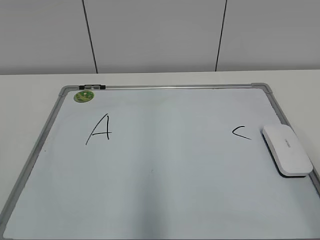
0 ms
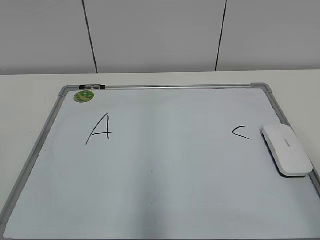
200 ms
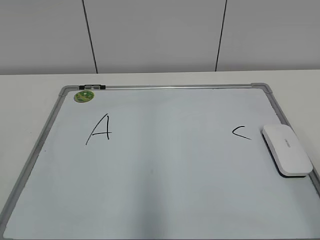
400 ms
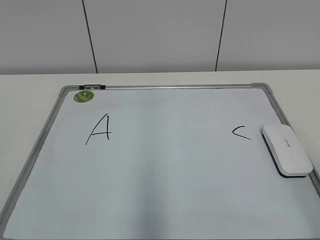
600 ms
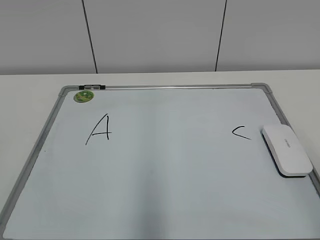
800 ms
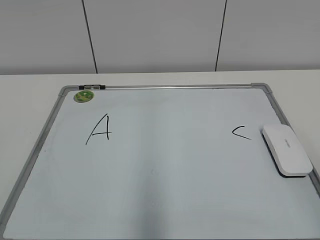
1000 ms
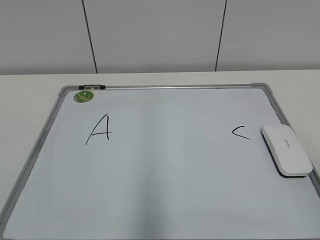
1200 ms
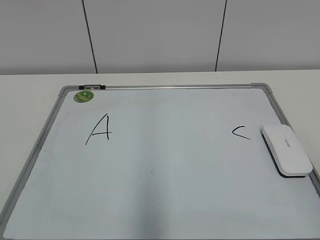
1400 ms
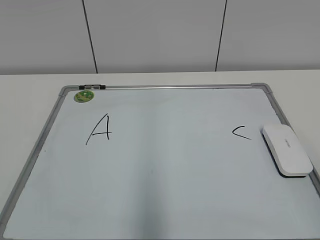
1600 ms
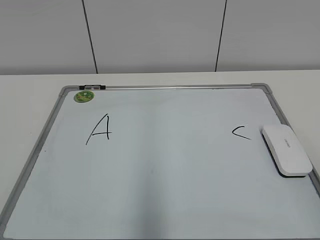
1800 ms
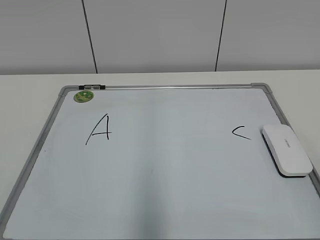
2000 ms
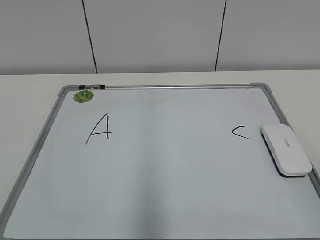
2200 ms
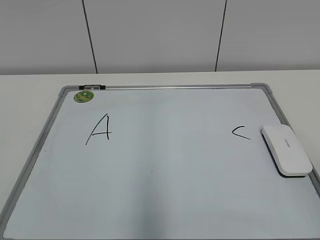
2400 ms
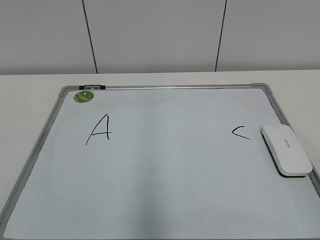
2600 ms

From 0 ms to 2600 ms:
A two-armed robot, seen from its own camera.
Task of the whole recording: pick up the eraser on the blackboard and erase the letter "B".
From 1200 ms to 2600 ms: Neither gripper changes place.

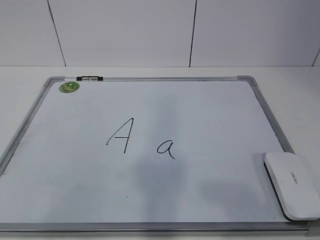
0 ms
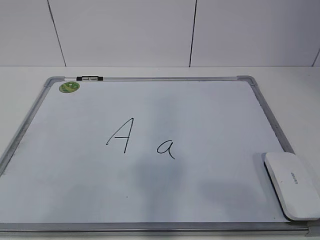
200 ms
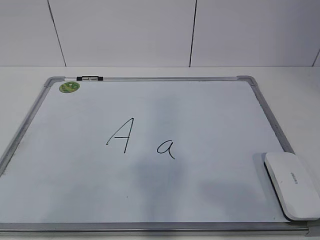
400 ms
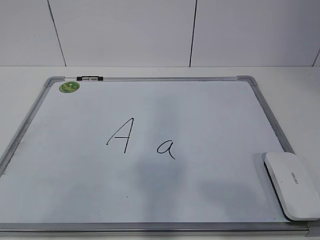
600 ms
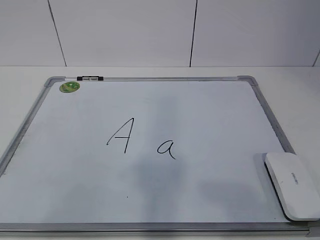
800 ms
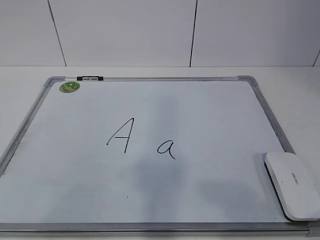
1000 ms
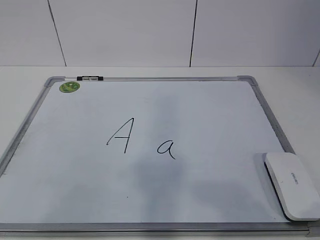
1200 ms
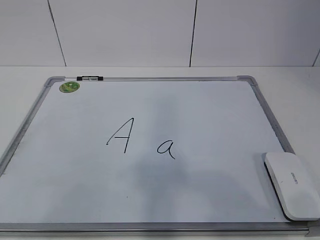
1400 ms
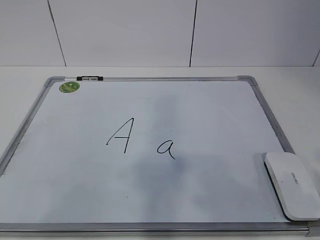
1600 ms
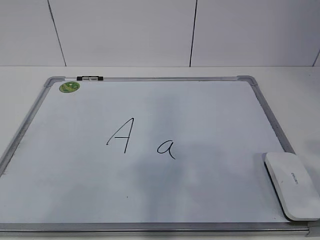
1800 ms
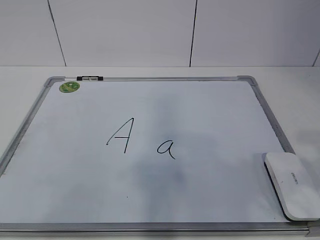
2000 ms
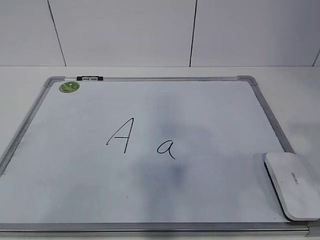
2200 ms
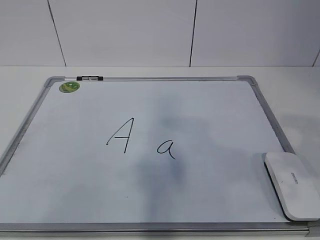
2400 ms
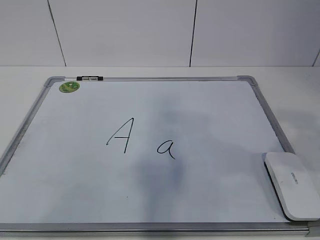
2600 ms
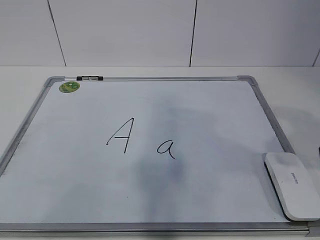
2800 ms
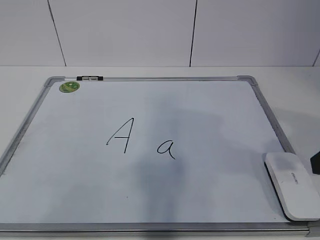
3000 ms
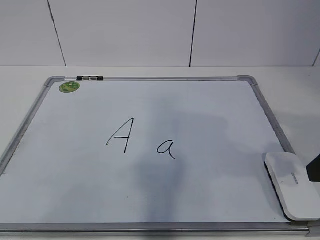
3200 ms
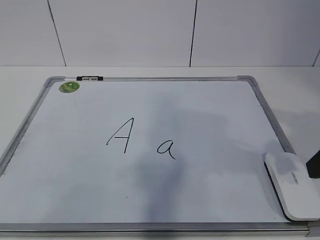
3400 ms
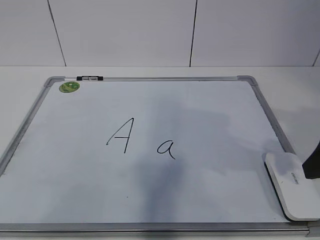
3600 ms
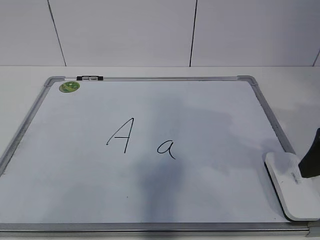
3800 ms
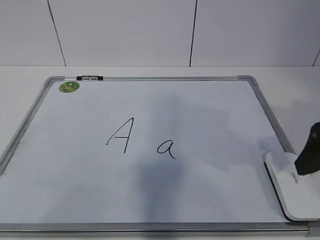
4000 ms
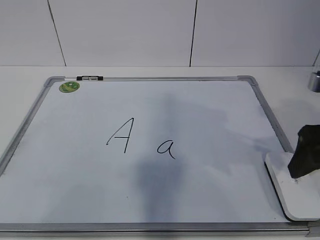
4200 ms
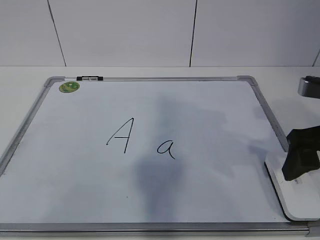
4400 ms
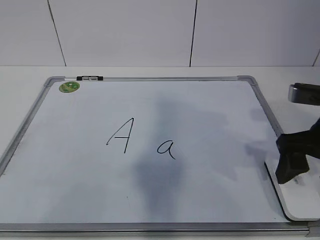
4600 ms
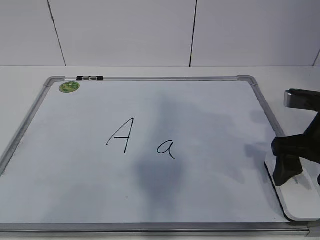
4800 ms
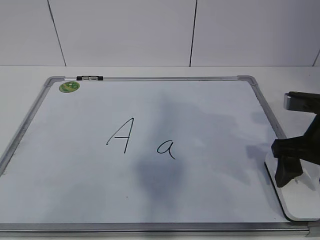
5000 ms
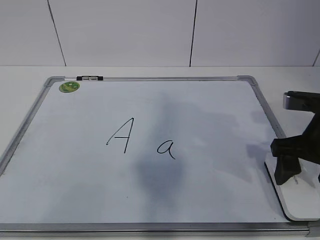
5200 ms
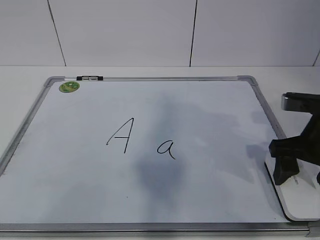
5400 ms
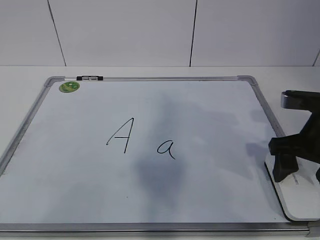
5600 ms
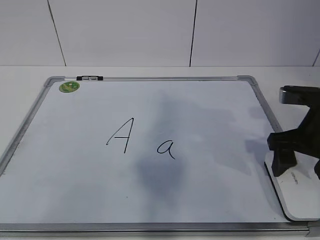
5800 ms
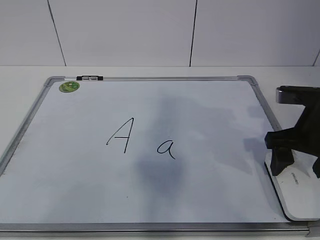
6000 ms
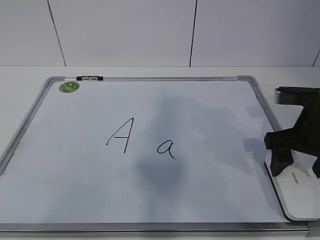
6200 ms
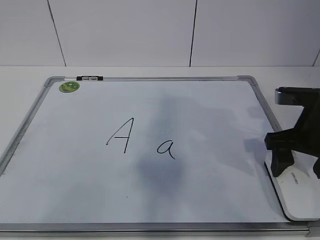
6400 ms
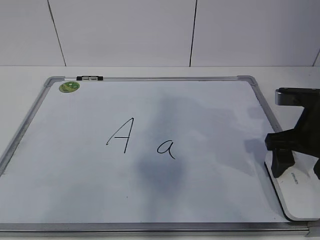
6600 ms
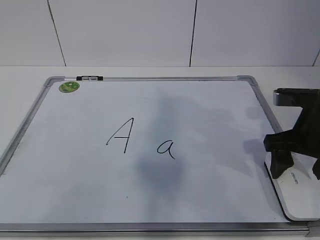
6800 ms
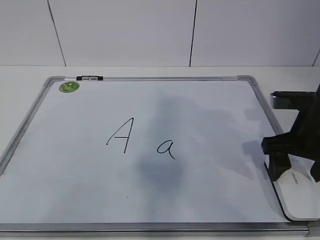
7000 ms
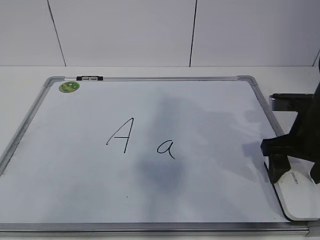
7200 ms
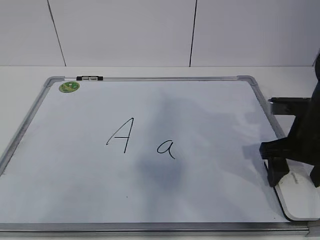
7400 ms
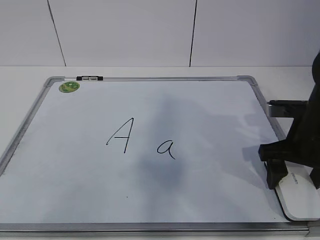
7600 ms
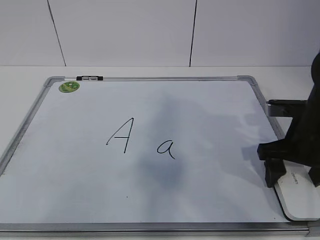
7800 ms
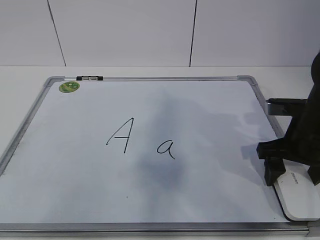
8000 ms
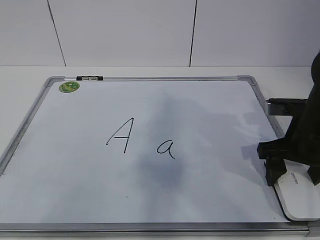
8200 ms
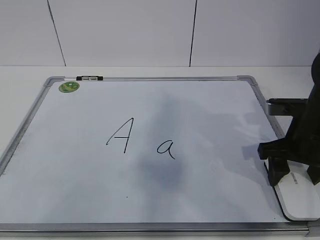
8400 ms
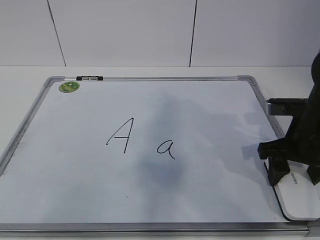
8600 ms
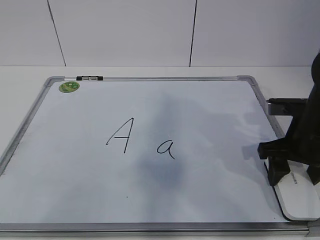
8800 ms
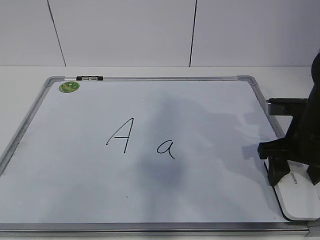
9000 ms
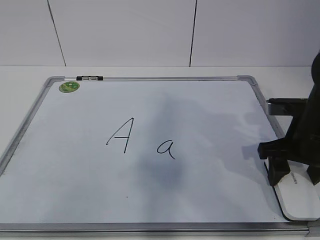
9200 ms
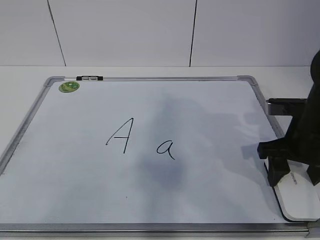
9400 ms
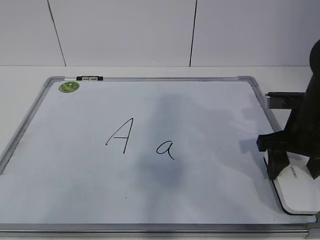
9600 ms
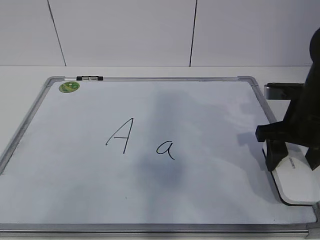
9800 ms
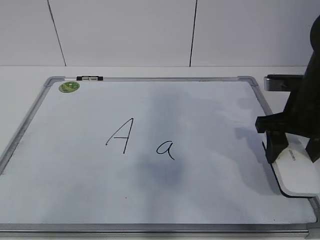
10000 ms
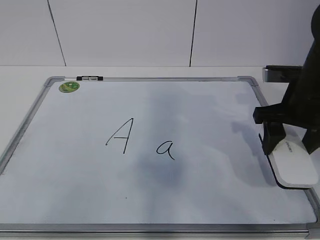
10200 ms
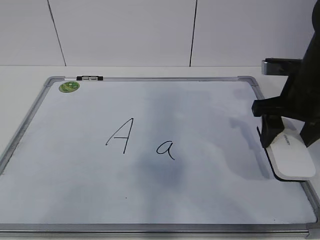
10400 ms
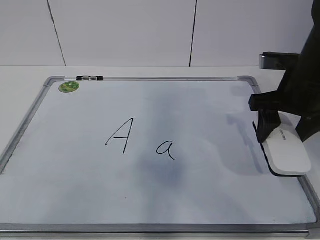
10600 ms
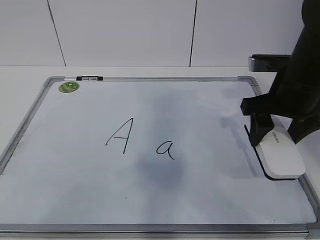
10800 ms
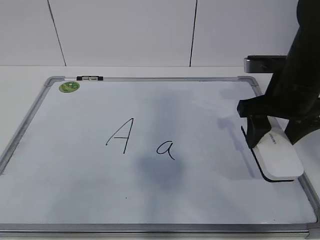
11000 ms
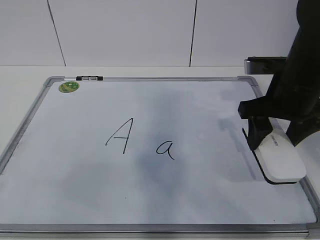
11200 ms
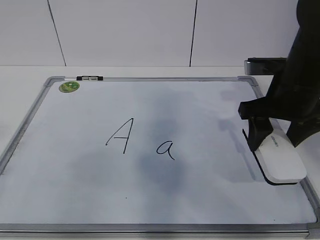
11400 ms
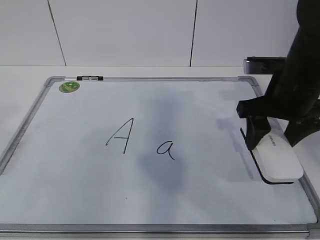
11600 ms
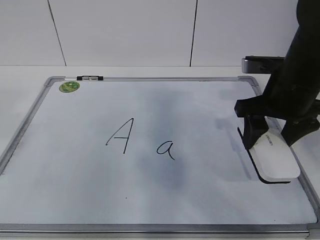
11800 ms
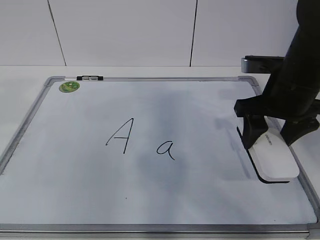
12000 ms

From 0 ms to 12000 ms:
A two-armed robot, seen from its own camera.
Task of the whole recording: pick up the eraser on the blackboard and erase the letter "a".
Step, from 0 ms to 7000 ms: Grab the eraser with your right hand.
From 1600 ms to 3000 ms: The right gripper heads forward, covering some 15 cm.
From 3000 ms to 4400 ms: The right gripper heads forward, covering some 5 cm, and opens up.
From 4400 ms to 6000 ms: The right gripper changes place by roughly 5 cm.
From 6000 ms to 7600 ms: The grippers make only small movements.
From 7600 ms to 9000 ms: The right gripper closes up.
From 9000 ms to 10400 ms: The right gripper shifts roughly 5 cm upward.

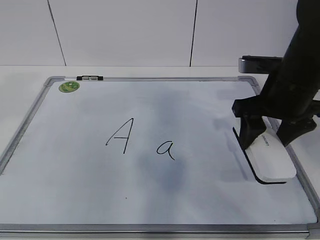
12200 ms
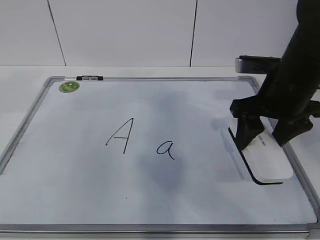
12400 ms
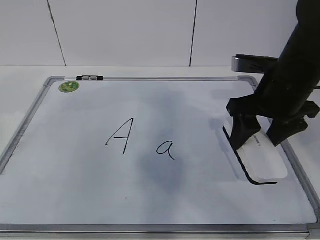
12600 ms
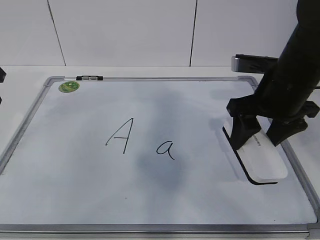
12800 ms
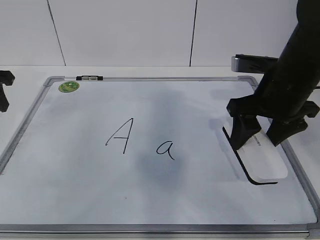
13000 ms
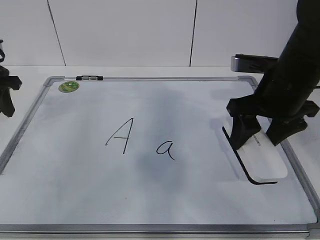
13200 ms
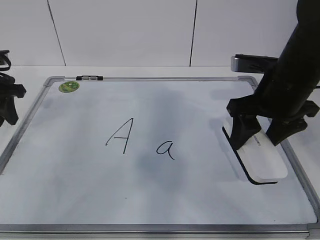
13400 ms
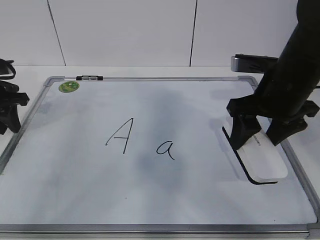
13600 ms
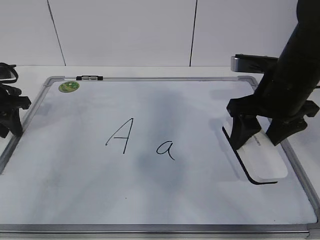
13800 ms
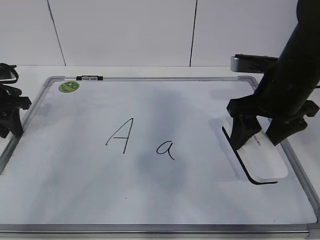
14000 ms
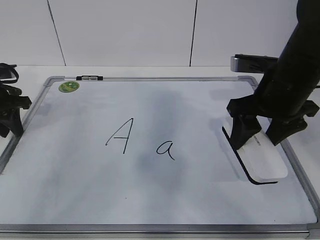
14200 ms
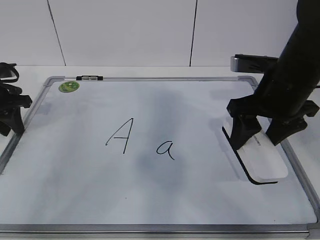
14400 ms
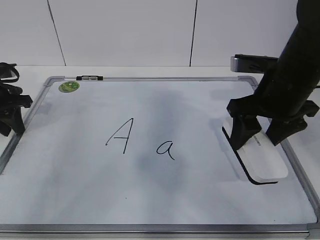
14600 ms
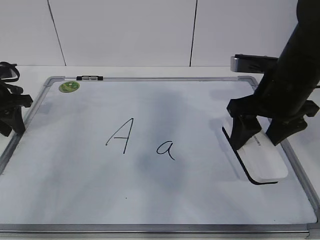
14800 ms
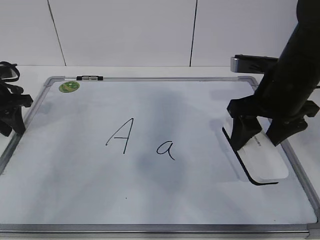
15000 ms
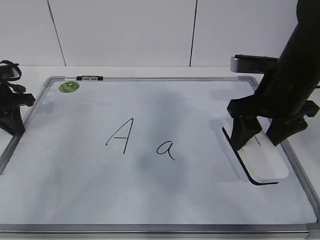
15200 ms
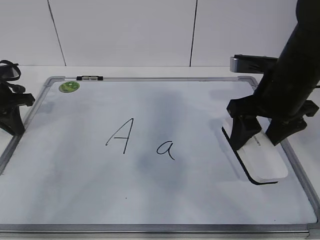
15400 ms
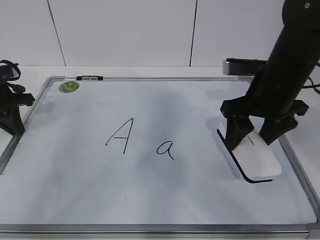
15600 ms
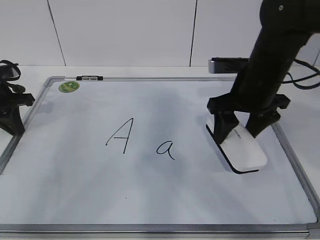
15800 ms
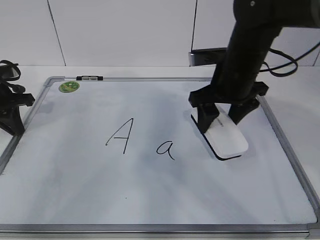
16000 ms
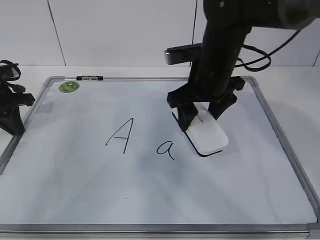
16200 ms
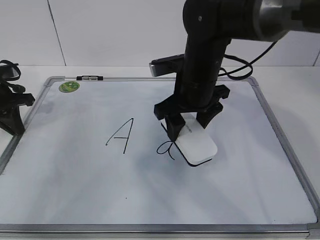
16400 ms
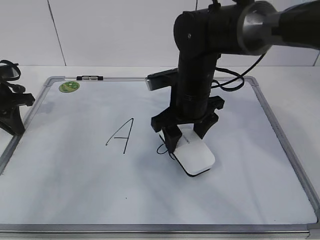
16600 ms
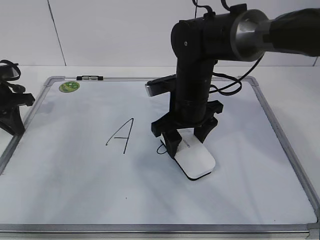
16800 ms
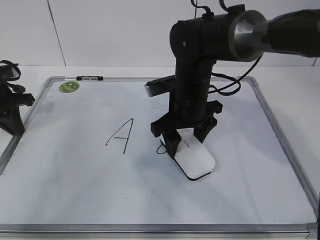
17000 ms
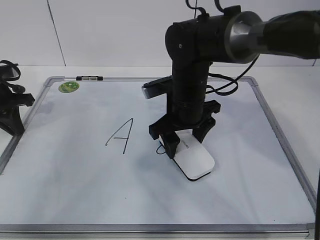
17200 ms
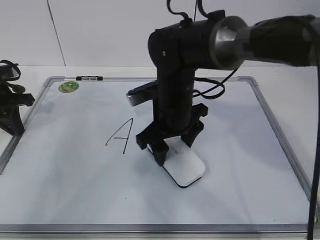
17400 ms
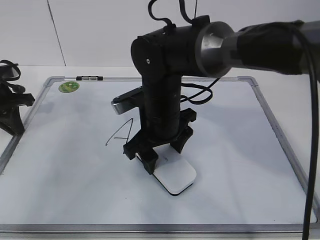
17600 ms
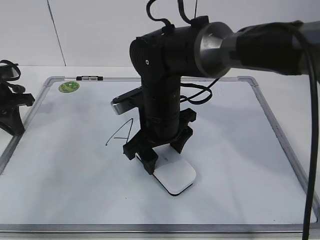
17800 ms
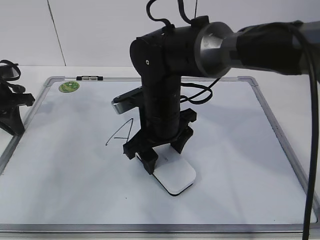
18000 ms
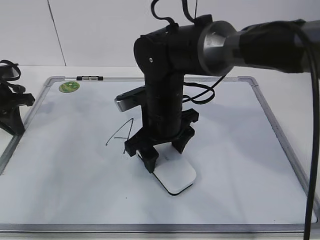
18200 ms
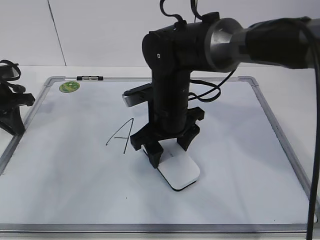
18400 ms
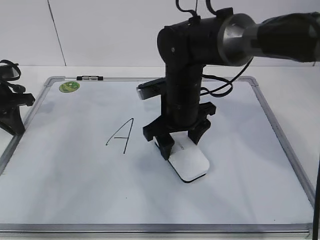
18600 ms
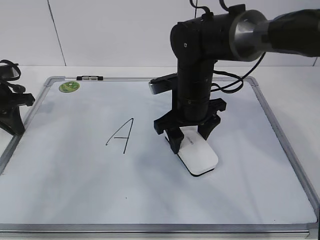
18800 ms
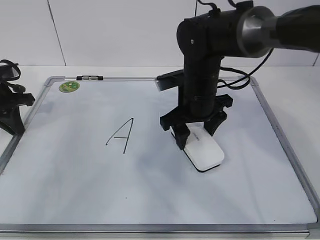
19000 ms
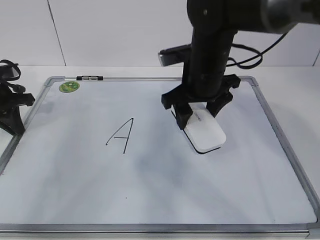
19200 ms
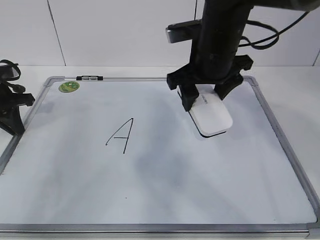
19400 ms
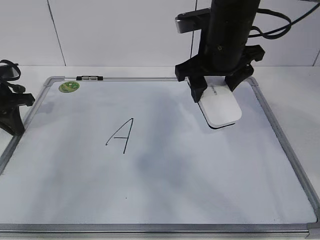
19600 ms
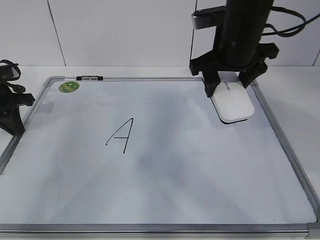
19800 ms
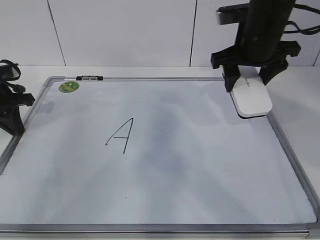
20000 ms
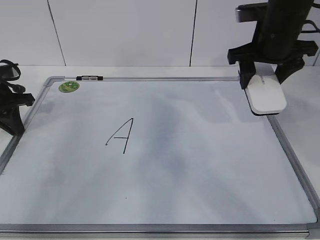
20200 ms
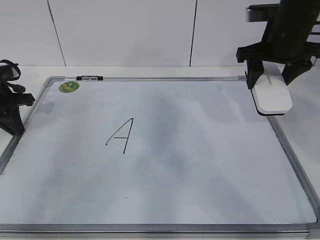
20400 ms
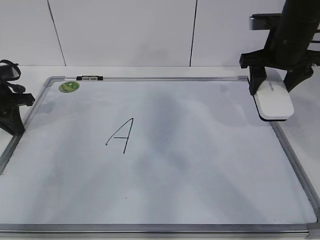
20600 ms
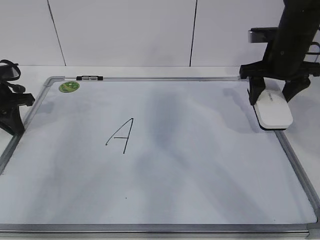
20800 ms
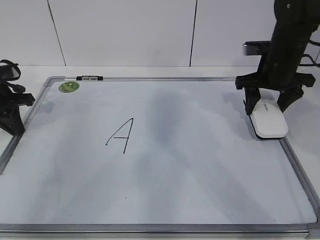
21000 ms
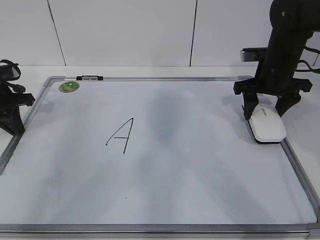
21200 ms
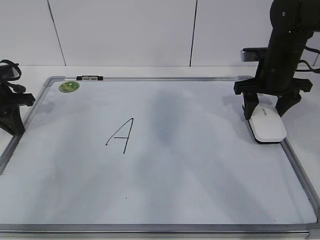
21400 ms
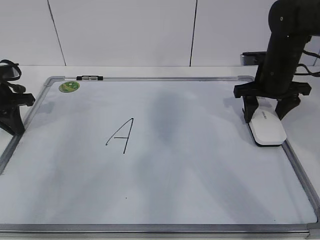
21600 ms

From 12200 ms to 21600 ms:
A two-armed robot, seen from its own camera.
Task of the whole recording: pick up the eraser on the blackboard and erase the letter "a".
Step, from 15800 ms to 19000 ms: Put down the eraser with your right hand.
From 12200 ms to 13800 ms: The left gripper goes some 20 cm downward and forward.
From 13800 ms to 15400 ms: The left gripper closes its fingers.
From 15400 ms to 17000 ms: The right gripper heads to the left, downward and forward, covering roughly 15 cm.
From 18400 ms to 20000 ms: The right gripper goes about 20 cm to the right and upward.
From 20000 ms to 21600 ms: The right gripper moves downward and to the right, approximately 10 cm.
